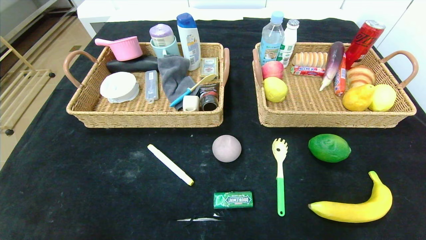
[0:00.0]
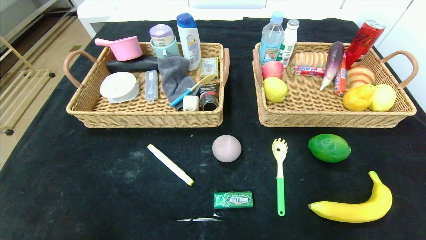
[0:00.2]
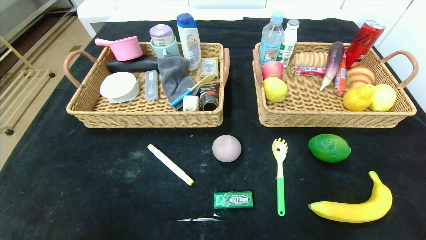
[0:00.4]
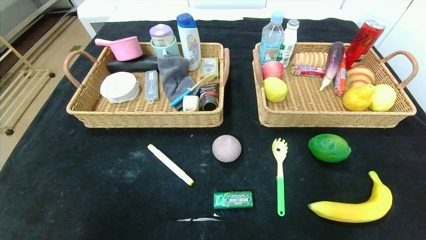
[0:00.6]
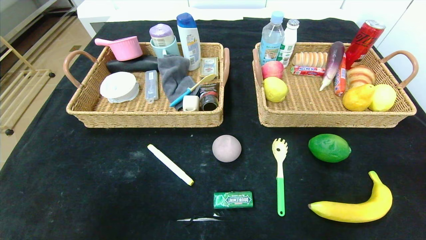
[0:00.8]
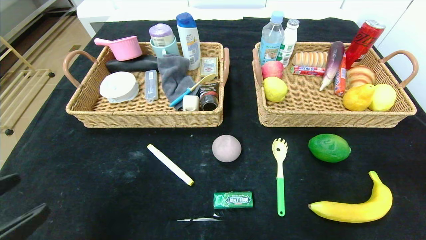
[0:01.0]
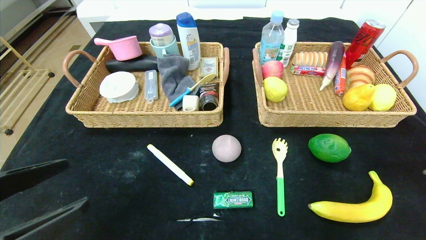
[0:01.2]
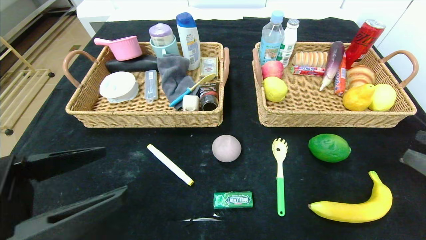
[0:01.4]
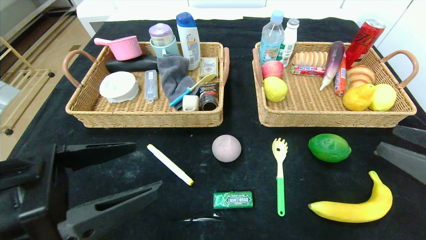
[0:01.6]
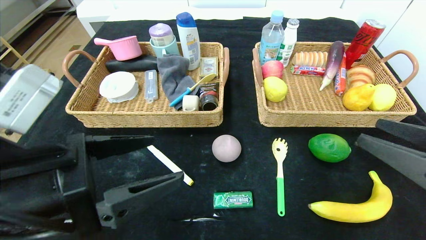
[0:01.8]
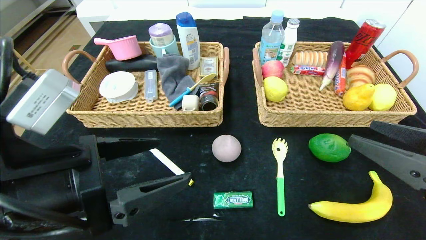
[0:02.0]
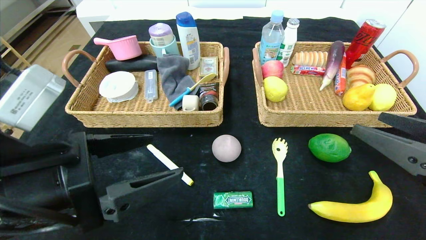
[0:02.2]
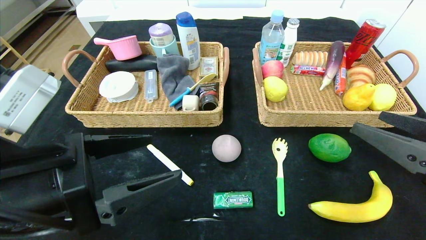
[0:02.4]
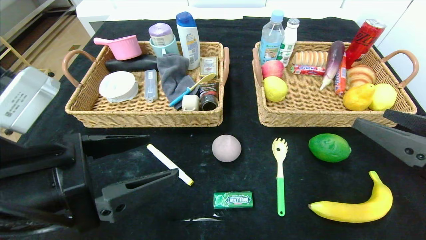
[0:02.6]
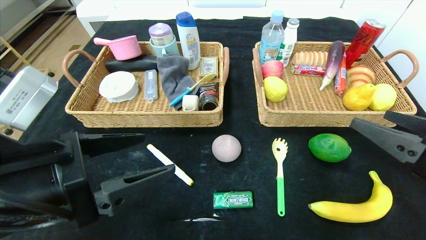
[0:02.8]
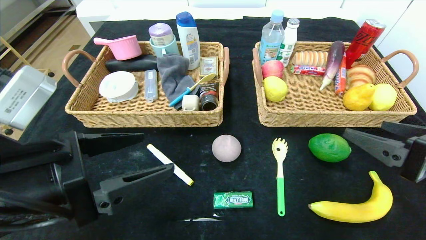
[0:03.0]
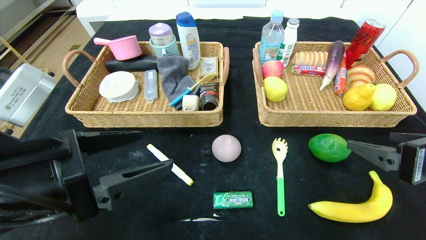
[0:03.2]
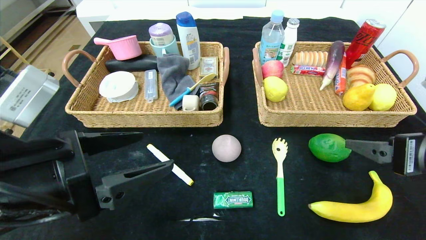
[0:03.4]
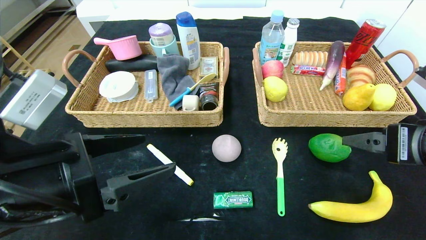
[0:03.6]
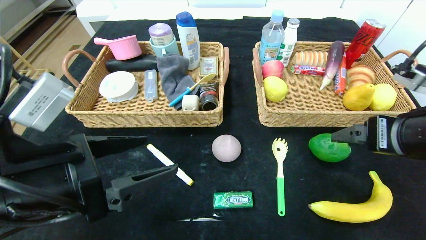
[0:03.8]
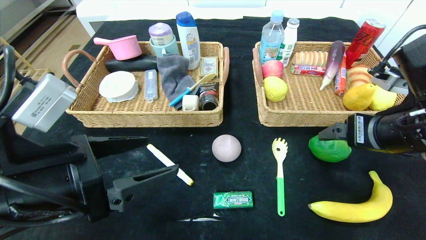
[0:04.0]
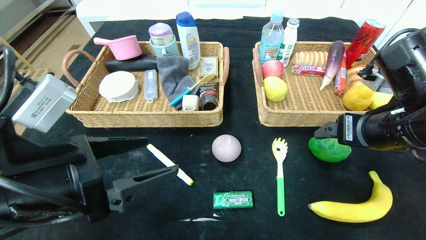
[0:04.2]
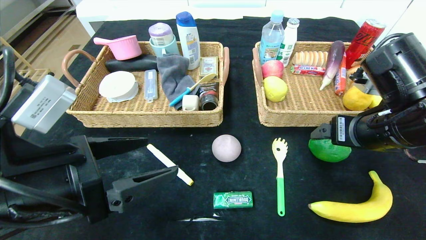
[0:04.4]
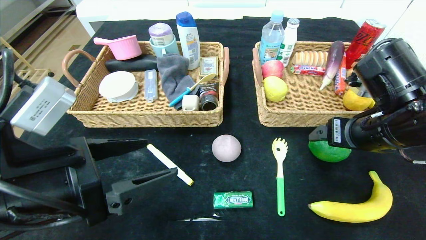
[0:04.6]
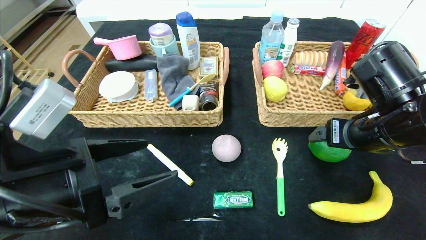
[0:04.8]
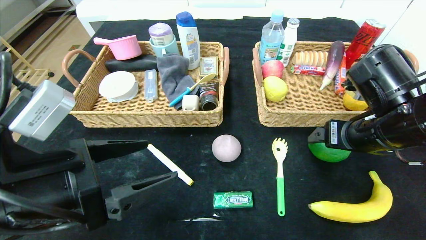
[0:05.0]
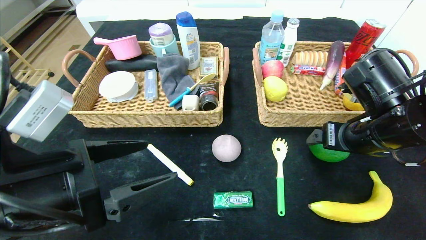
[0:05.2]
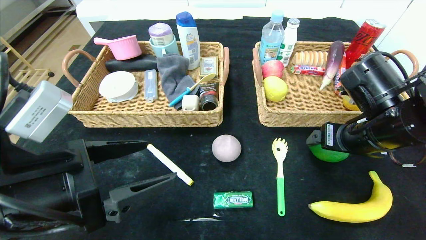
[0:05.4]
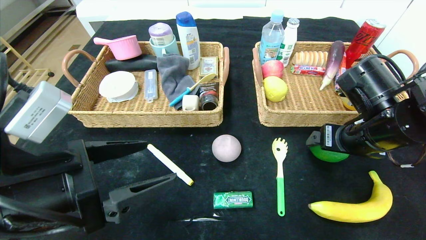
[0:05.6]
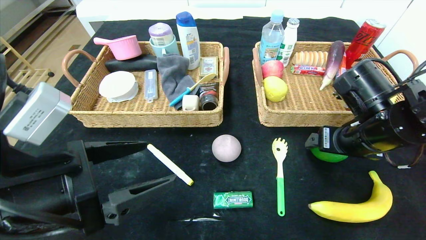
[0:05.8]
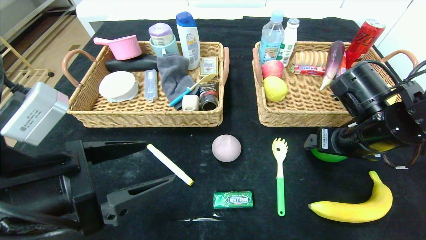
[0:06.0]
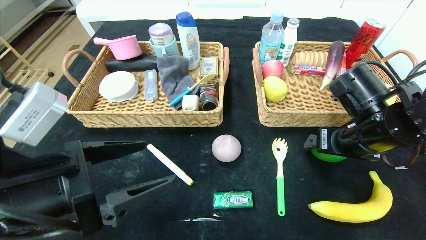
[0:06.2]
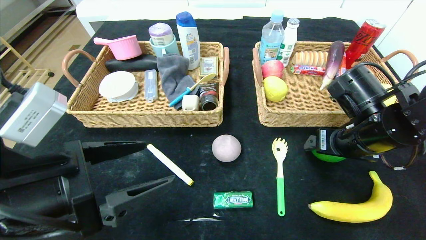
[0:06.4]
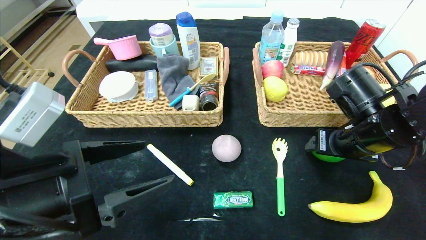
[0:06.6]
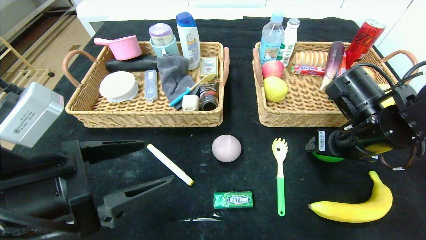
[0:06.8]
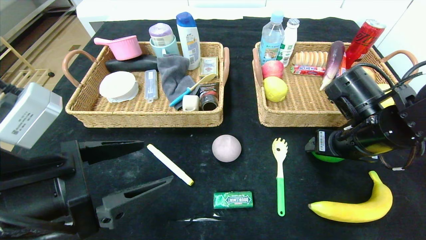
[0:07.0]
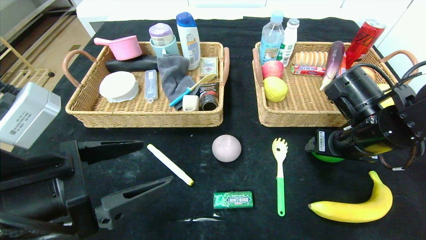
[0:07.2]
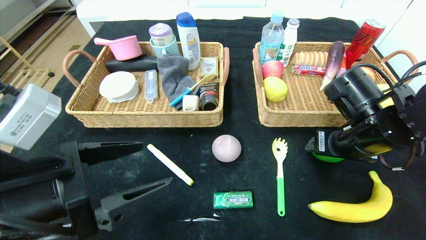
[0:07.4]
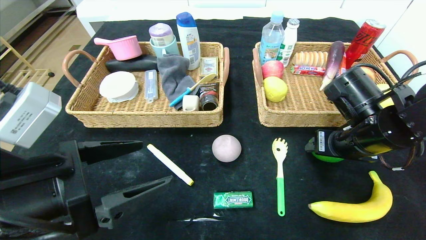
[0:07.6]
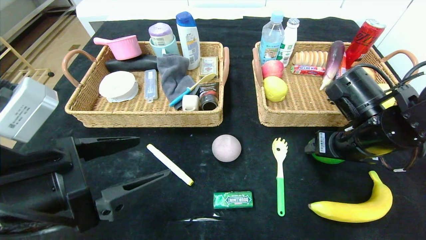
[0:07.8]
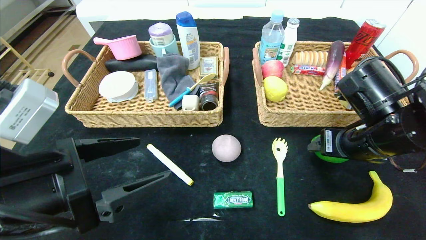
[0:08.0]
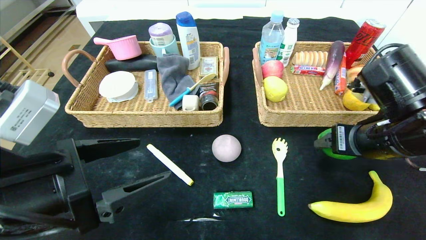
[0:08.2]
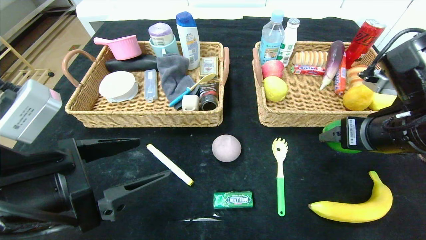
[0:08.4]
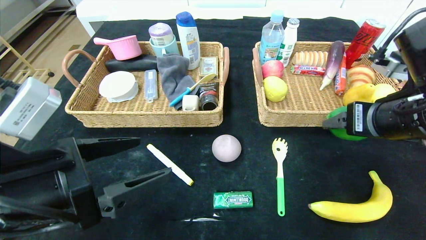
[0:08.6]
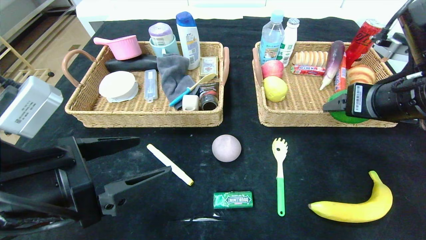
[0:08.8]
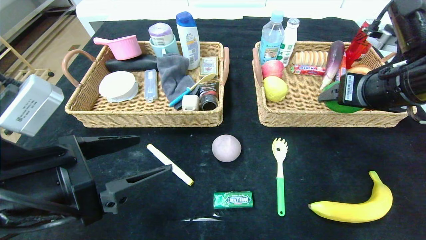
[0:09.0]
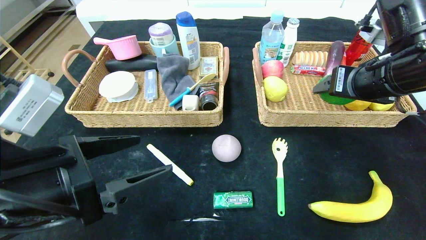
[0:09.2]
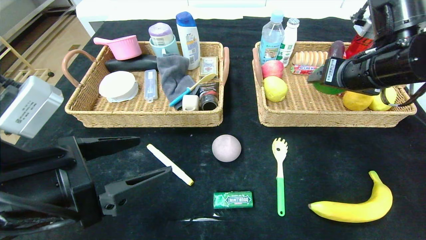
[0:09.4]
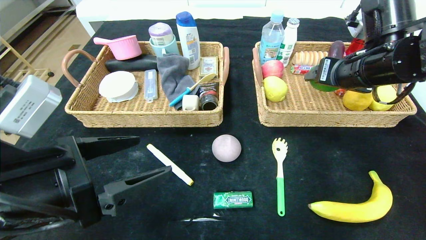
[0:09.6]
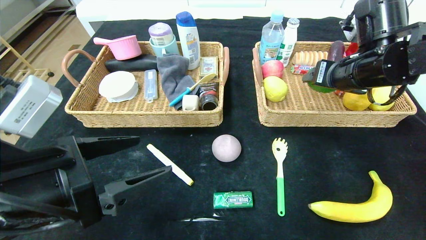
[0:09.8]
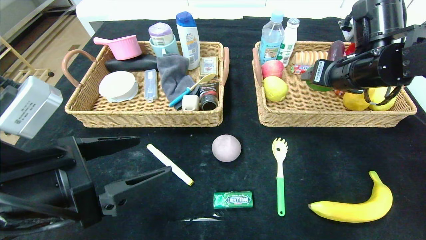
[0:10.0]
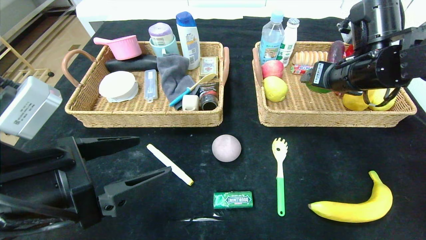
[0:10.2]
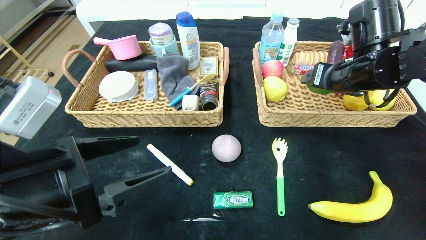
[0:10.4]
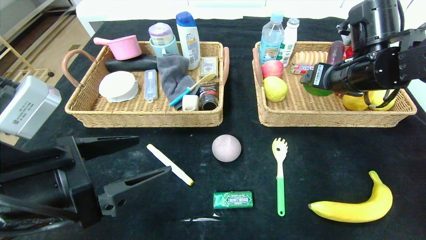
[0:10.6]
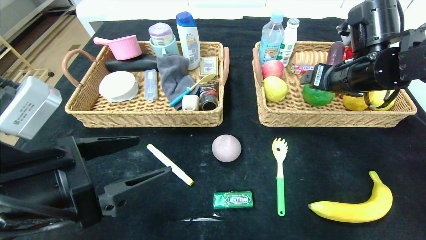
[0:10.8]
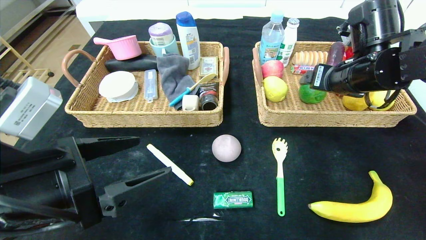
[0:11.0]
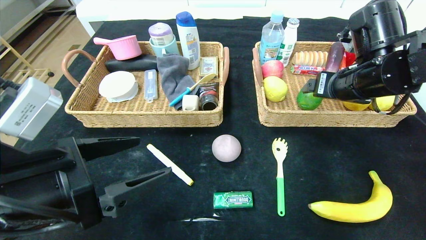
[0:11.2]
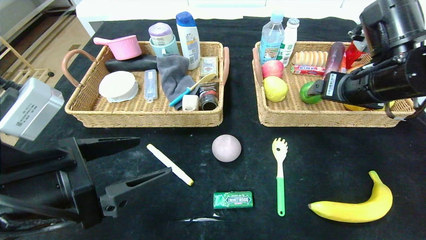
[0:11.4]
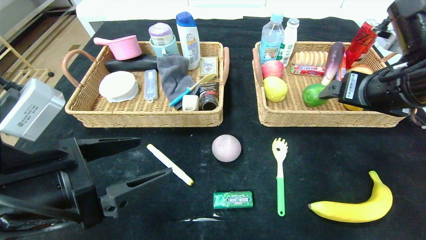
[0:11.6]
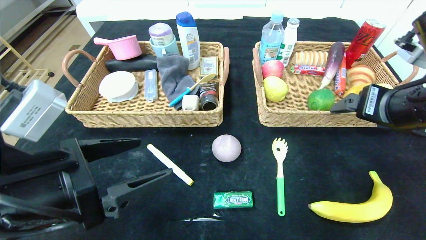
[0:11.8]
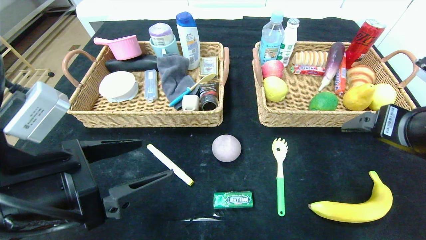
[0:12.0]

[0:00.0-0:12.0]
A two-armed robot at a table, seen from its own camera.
0.0 to 1.6 s: The left gripper is displaced upward, forward and to the right by roughly 25 cm. The right gripper heads upward and forward, covering roughly 20 cm.
1.6 to 3.0 s: There are only small adjustments of the grippers.
3.0 to 4.4 s: The right gripper moves forward, roughly 10 cm.
4.4 to 6.0 s: The grippers move only a little.
6.0 to 7.6 s: Neither gripper changes place.
7.6 to 9.0 s: The right gripper shifts approximately 10 cm upward.
9.0 to 10.4 s: The right gripper moves forward, approximately 10 cm.
10.4 to 12.0 s: The right gripper moves backward, about 15 cm.

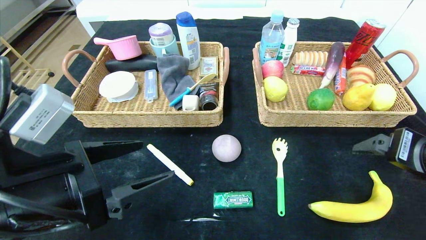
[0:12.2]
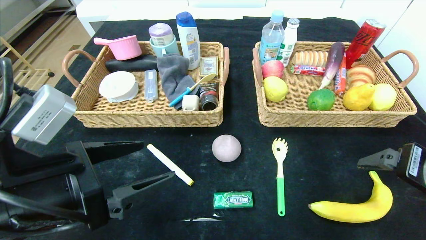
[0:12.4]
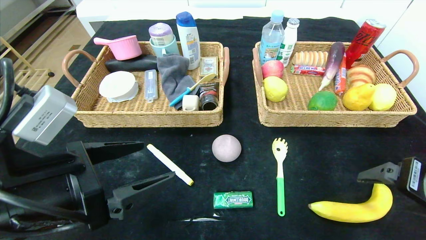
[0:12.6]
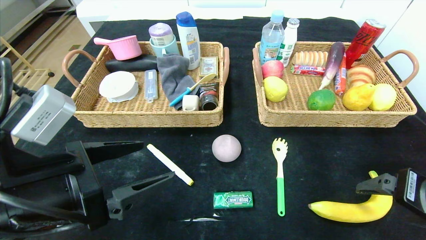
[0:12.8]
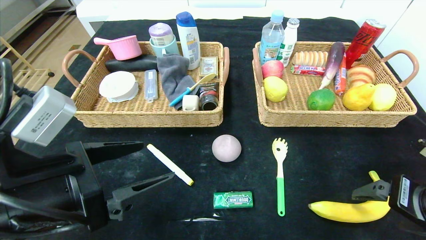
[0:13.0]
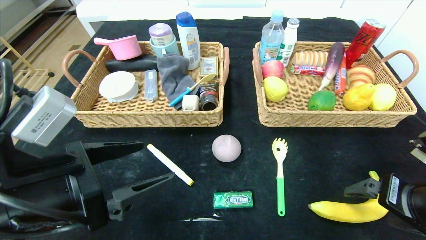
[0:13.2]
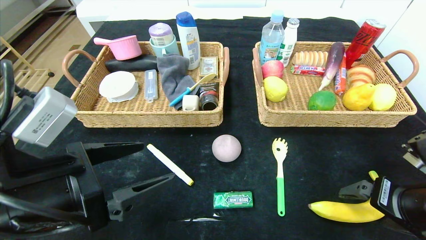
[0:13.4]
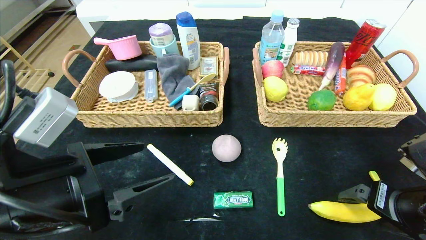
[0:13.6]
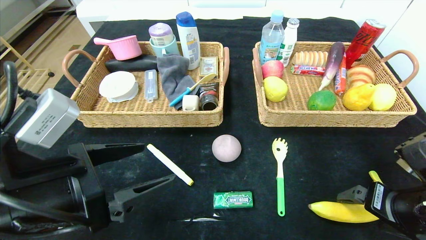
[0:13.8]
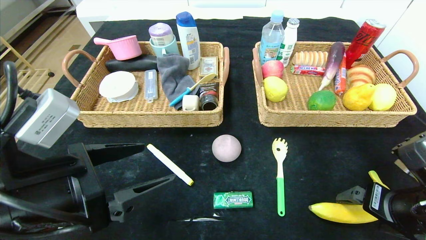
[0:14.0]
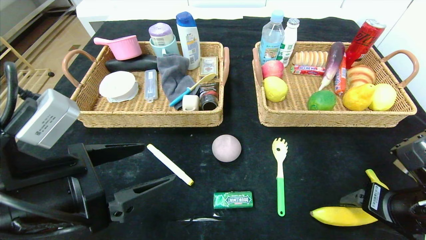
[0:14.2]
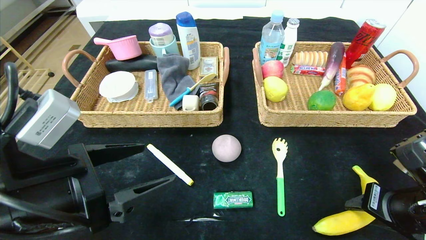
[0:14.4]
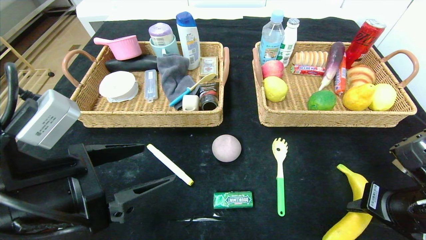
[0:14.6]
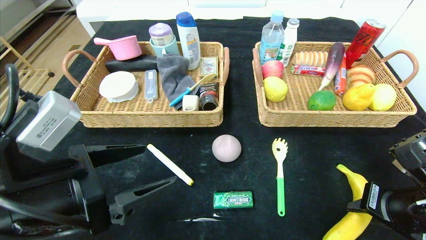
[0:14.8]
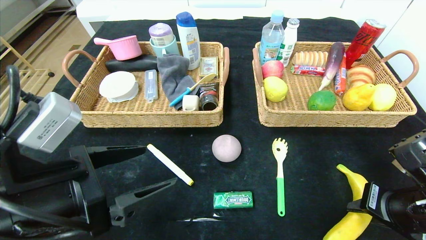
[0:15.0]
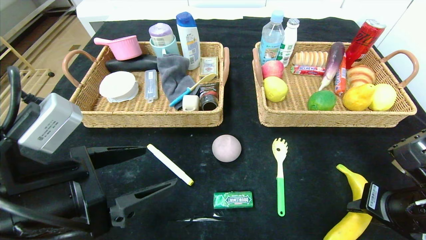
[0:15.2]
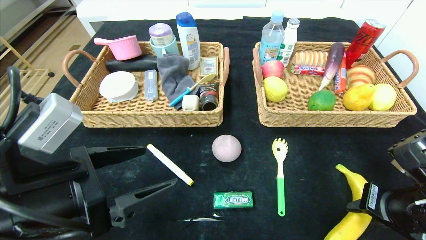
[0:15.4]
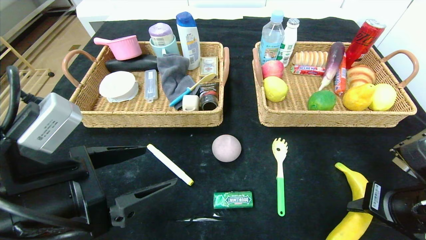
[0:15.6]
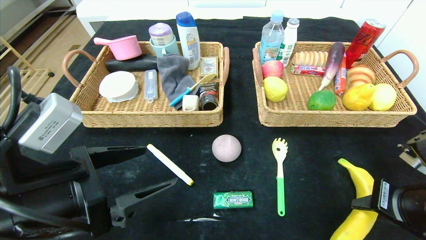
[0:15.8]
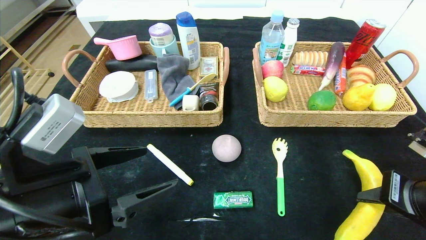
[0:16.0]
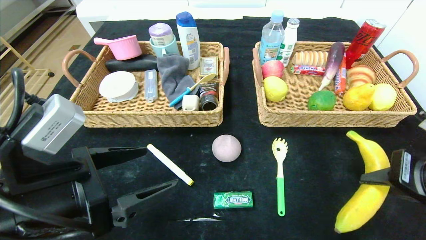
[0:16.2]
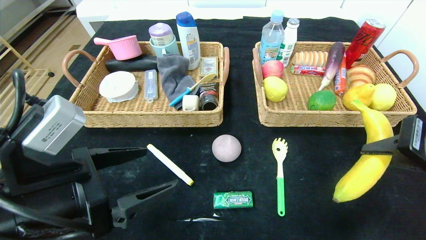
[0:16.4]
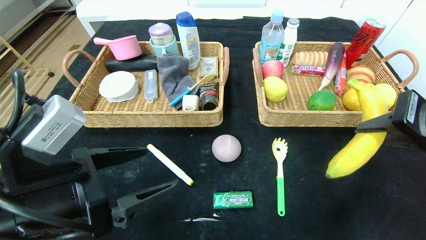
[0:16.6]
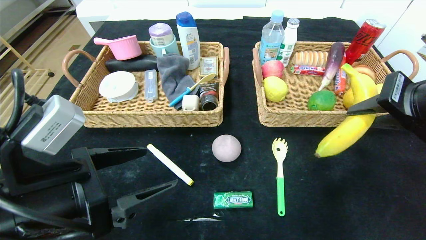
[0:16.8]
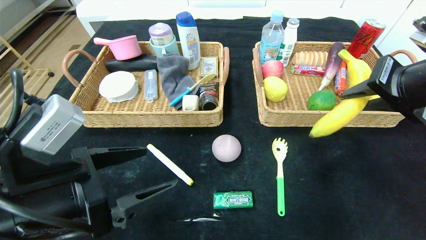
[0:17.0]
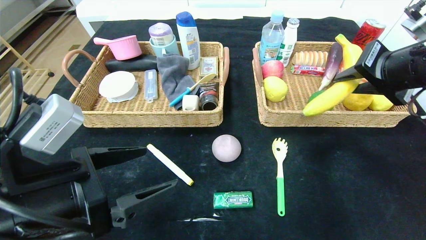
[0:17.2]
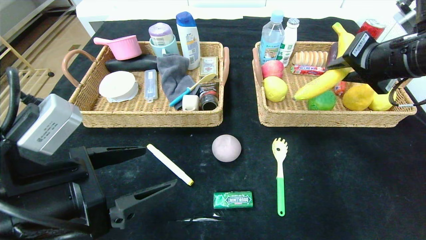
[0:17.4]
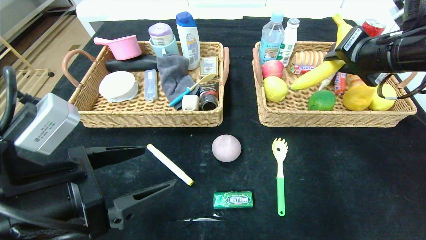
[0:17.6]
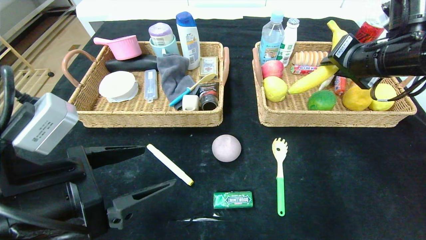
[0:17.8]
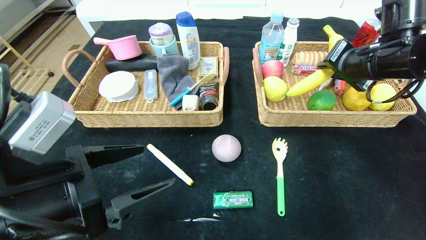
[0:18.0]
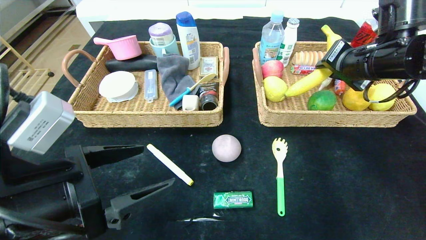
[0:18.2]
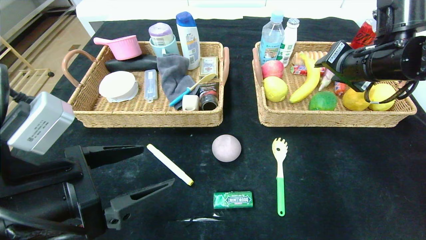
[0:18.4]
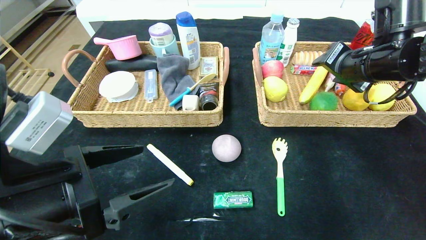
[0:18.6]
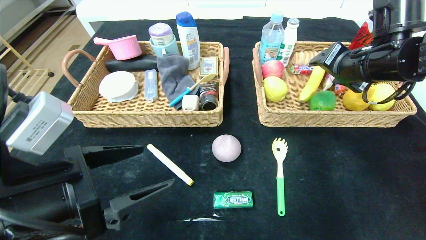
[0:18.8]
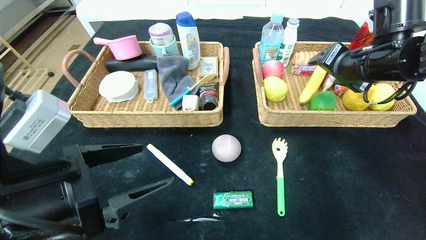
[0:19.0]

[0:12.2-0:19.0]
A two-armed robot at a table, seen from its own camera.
12.2 to 13.6 s: The right gripper heads downward, covering approximately 10 cm.
13.6 to 15.0 s: The right gripper closes up.
15.0 to 16.2 s: The right gripper goes about 5 cm upward.
16.2 to 17.6 s: The right gripper shifts approximately 20 cm forward and upward.
17.6 to 19.0 s: The right gripper opens.
